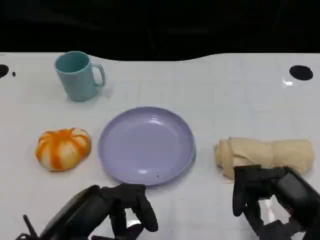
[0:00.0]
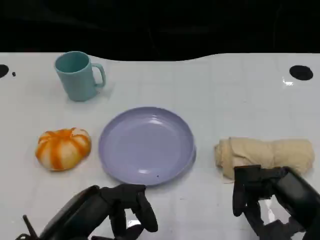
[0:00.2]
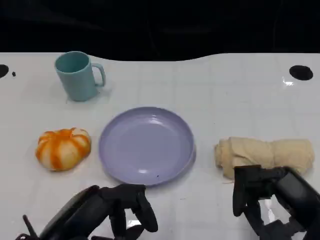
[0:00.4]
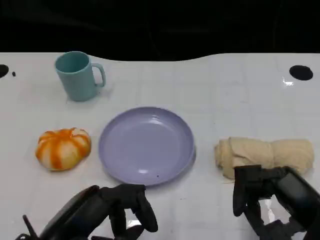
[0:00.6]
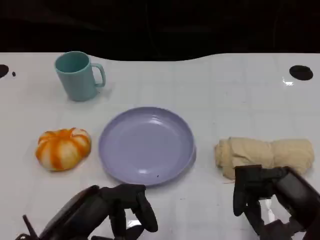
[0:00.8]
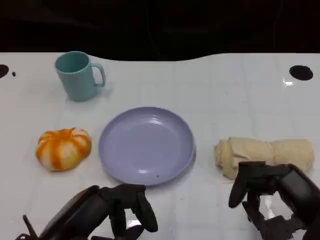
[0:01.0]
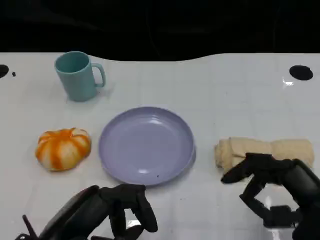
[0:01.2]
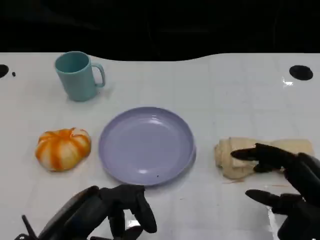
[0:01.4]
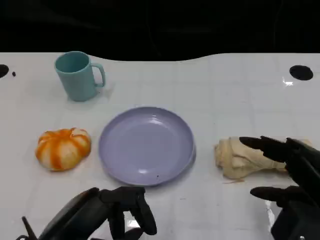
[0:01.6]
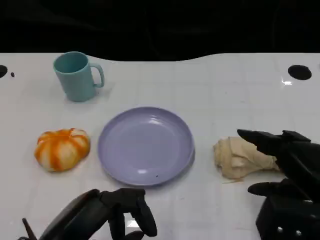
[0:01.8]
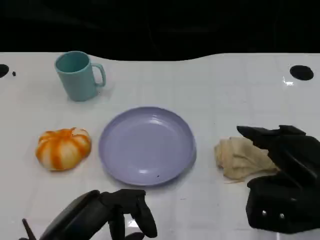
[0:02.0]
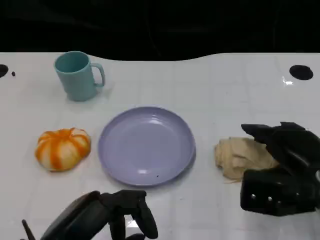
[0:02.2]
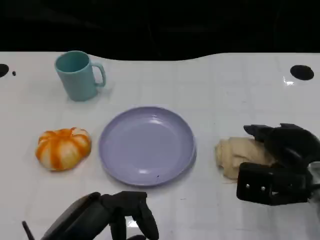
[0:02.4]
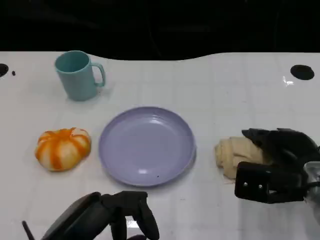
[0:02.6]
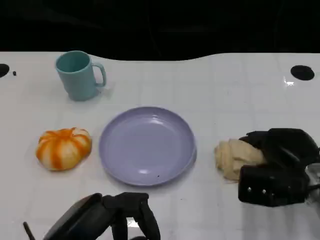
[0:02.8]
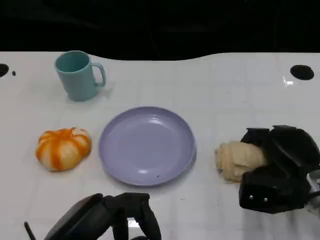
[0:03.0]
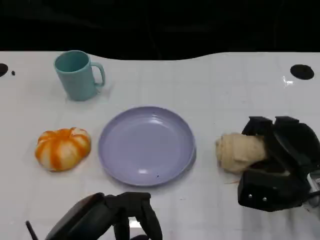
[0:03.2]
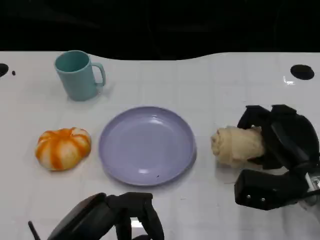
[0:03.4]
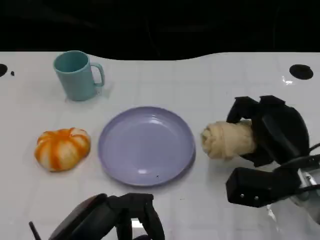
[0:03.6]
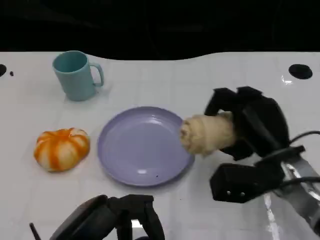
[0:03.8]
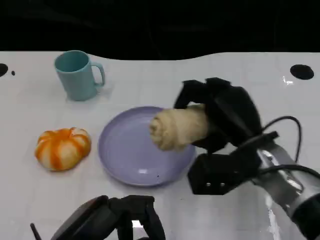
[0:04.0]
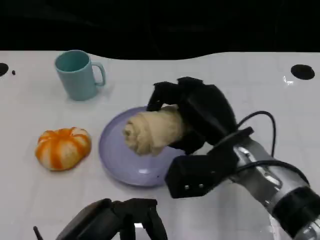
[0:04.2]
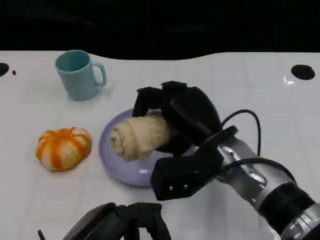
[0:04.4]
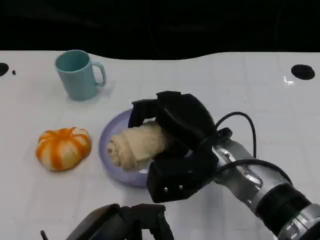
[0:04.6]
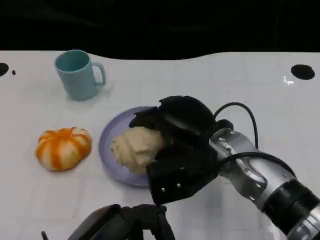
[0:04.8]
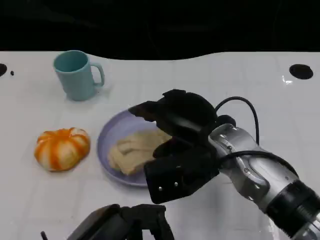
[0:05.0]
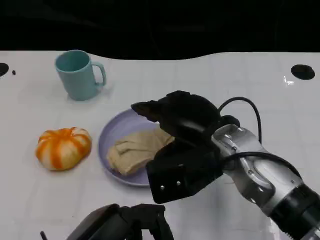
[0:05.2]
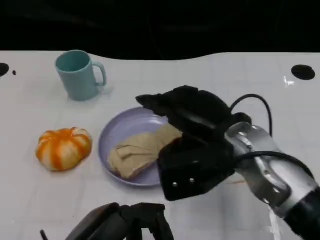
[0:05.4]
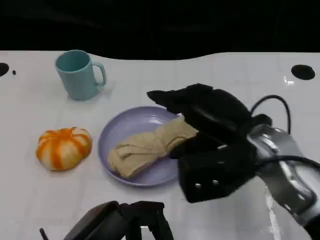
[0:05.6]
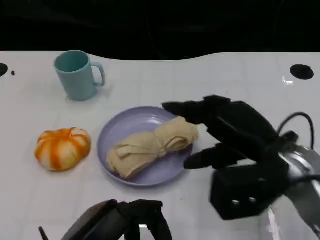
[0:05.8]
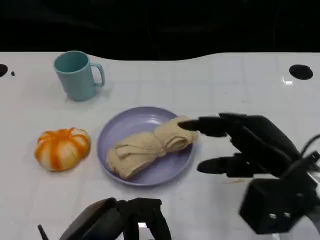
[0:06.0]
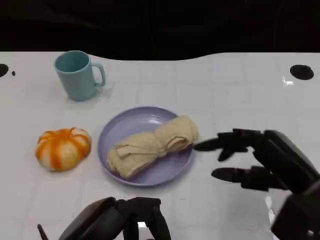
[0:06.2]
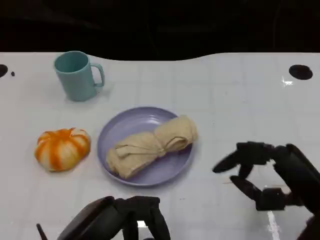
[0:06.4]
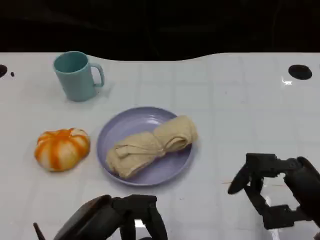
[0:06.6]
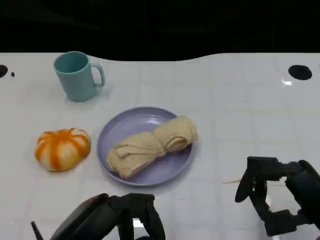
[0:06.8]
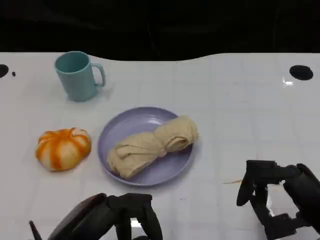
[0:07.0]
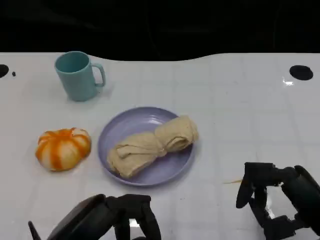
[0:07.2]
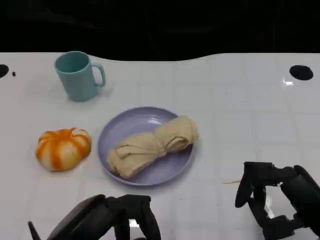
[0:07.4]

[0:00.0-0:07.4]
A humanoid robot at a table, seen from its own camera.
Task of the whole recording: Grasp the towel on the left side of the plate with the left hand and place it into the plate.
0:01.4 to 0:03.0: The right hand goes approximately 10 cm forward and downward.
0:03.0 to 0:04.4: The right hand shifts about 15 cm to the left and upward.
0:04.4 to 0:06.0: The right hand travels to the right and backward by about 15 cm.
0:06.0 to 0:07.4: The right hand heads backward, covering approximately 5 cm.

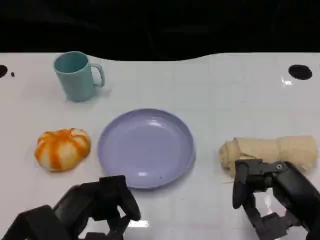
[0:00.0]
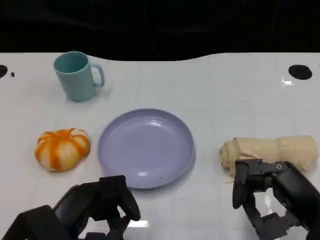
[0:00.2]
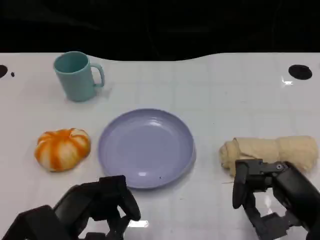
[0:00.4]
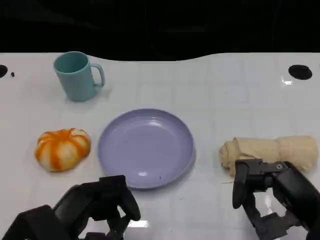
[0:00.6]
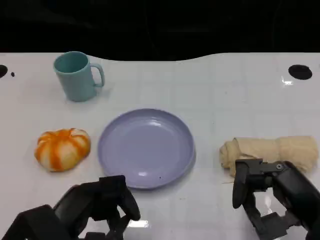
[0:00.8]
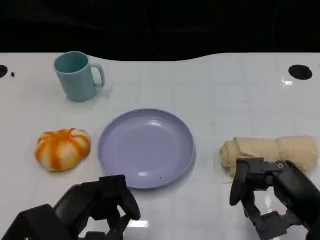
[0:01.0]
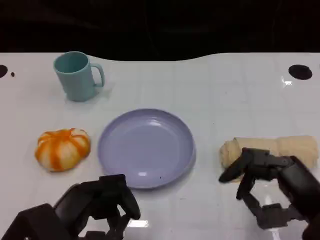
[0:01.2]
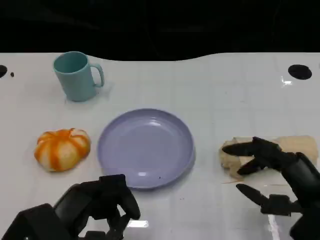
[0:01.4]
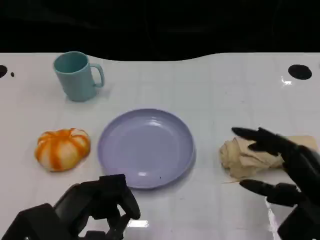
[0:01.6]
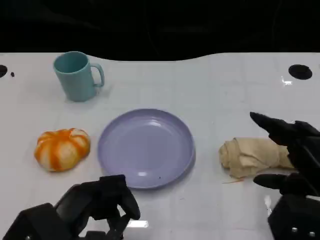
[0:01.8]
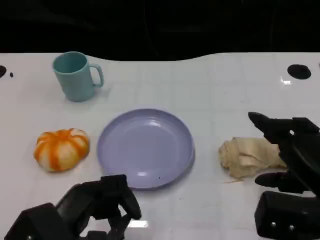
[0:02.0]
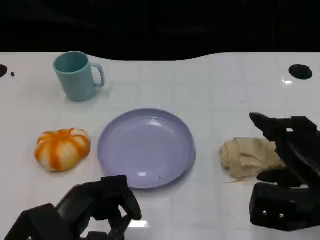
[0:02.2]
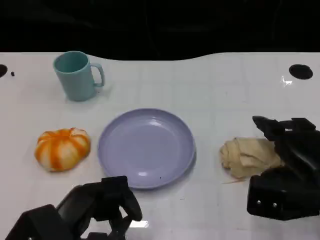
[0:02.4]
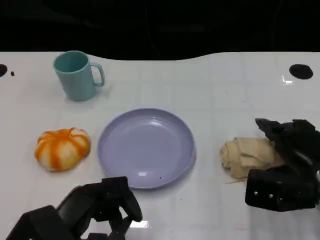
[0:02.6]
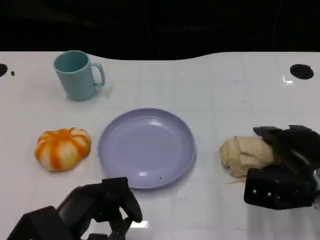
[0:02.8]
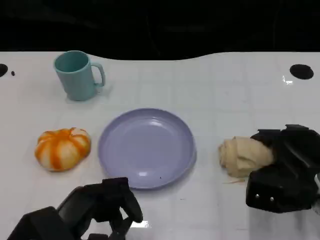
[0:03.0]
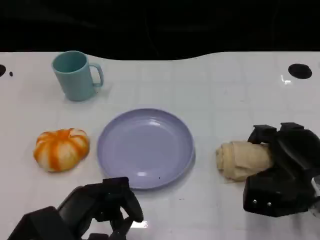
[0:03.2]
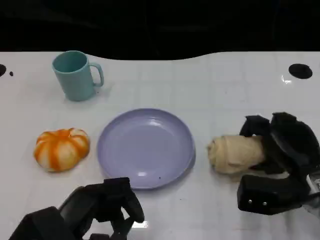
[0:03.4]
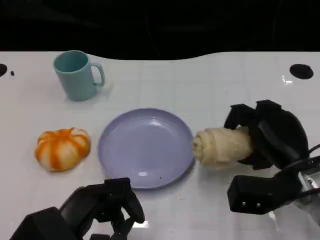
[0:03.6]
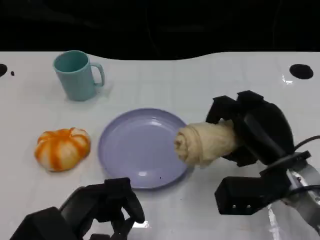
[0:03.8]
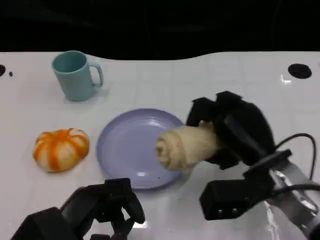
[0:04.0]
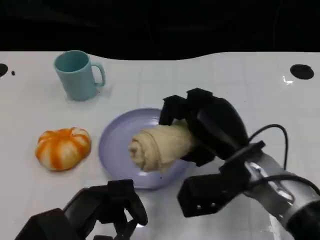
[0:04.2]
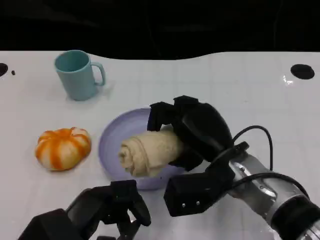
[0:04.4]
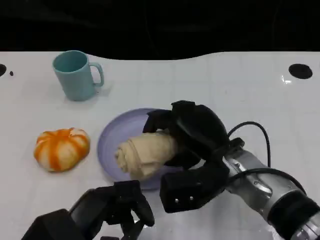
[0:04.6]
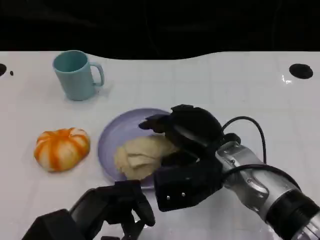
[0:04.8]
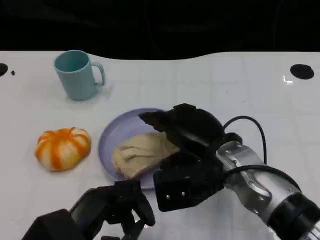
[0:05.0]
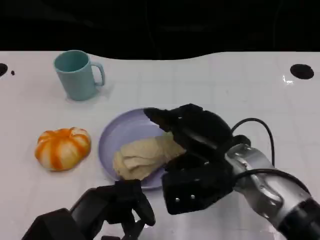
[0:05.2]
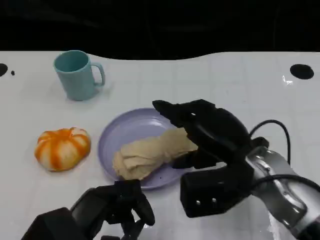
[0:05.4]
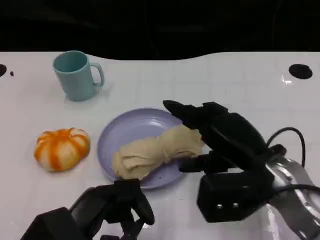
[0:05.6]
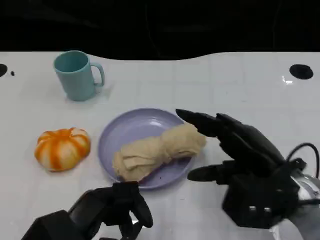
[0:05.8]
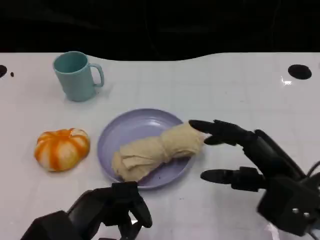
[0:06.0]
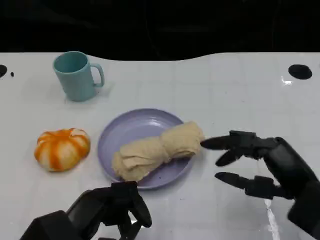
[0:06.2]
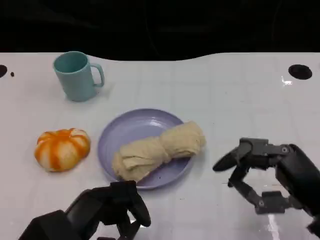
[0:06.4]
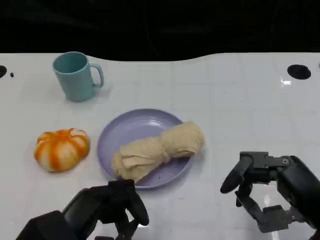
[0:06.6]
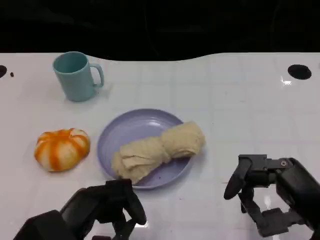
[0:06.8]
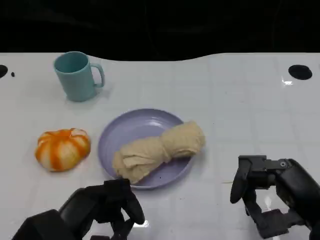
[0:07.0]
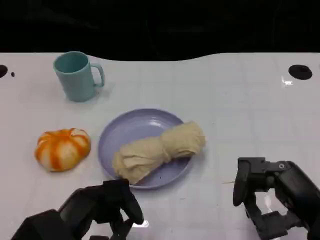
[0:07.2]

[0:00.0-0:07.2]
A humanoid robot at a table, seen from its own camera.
Task of the whole recording: Grasp the towel on the left side of the plate with the left hand and place it into the plate.
0:00.0 to 0:01.4: The hands stay close to where they were, moving slightly.
0:01.4 to 0:02.8: The right hand is displaced forward by roughly 10 cm.
0:02.8 to 0:04.4: The right hand moves to the left, approximately 15 cm.
0:04.4 to 0:05.8: The right hand is displaced to the right by approximately 10 cm.
0:05.8 to 0:07.2: The right hand moves backward, about 5 cm.

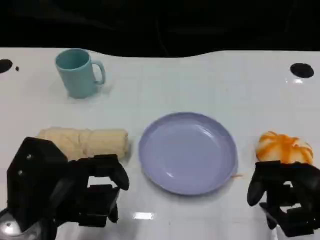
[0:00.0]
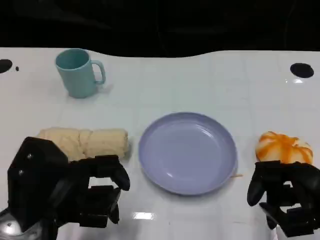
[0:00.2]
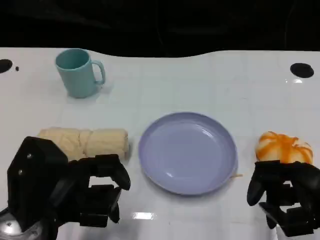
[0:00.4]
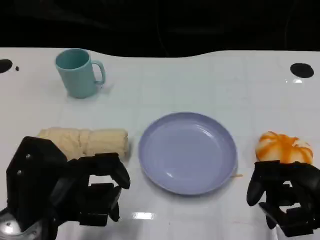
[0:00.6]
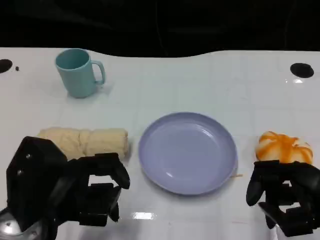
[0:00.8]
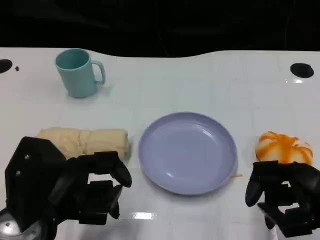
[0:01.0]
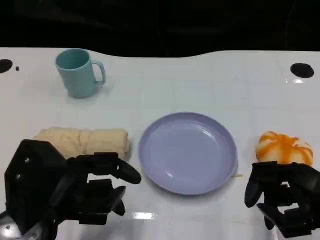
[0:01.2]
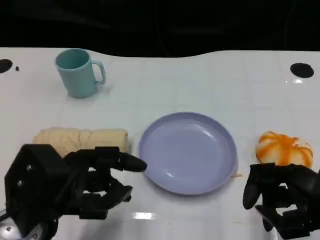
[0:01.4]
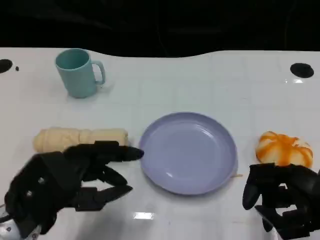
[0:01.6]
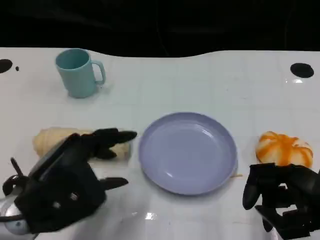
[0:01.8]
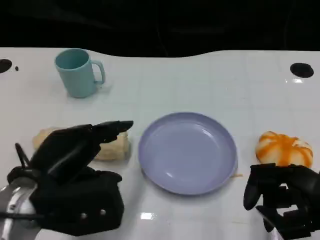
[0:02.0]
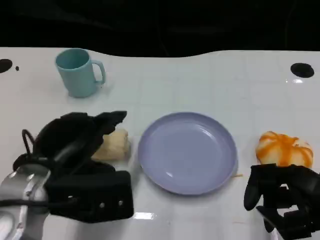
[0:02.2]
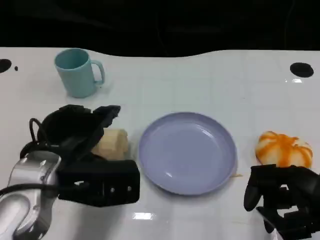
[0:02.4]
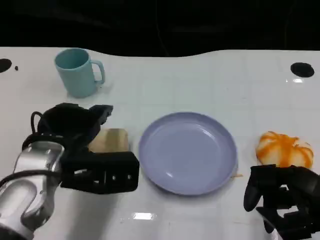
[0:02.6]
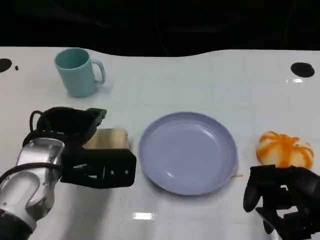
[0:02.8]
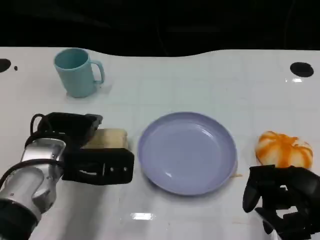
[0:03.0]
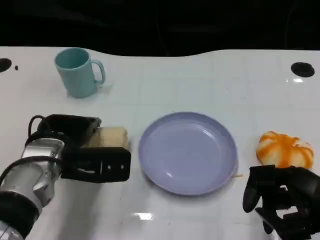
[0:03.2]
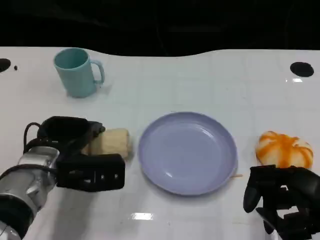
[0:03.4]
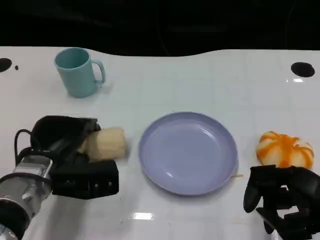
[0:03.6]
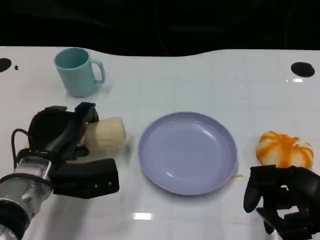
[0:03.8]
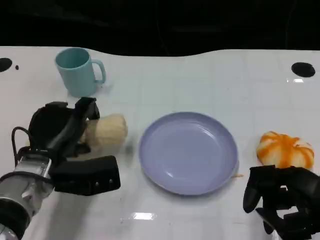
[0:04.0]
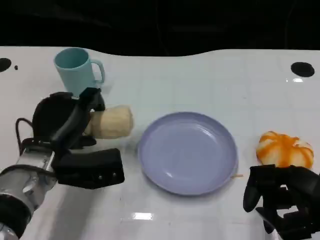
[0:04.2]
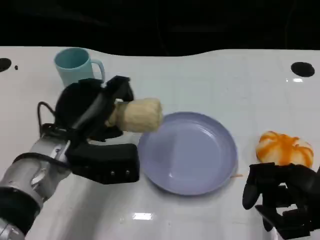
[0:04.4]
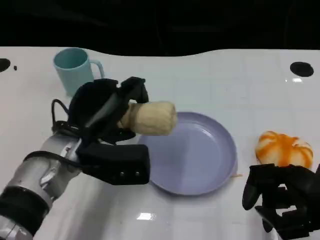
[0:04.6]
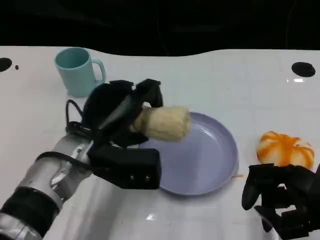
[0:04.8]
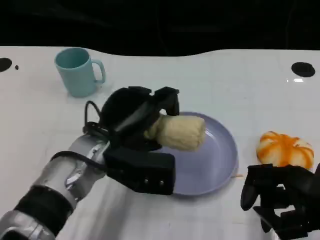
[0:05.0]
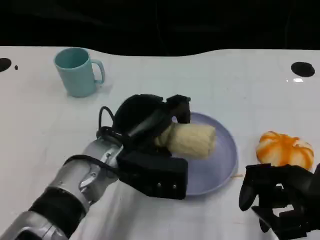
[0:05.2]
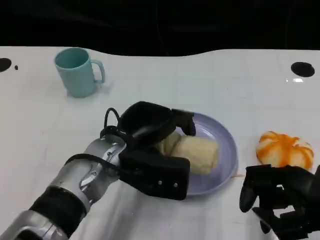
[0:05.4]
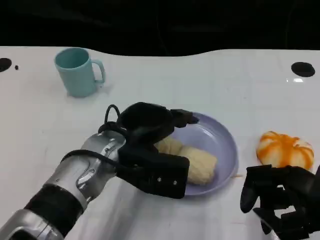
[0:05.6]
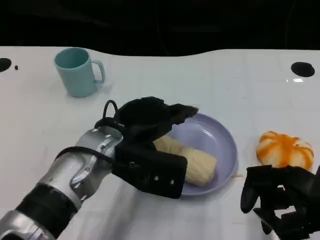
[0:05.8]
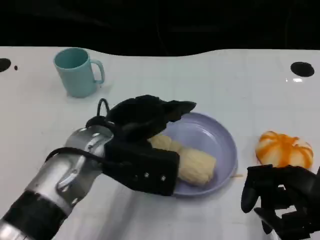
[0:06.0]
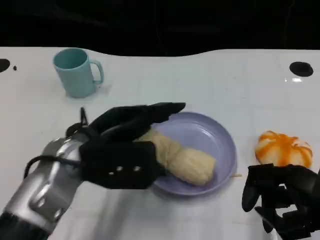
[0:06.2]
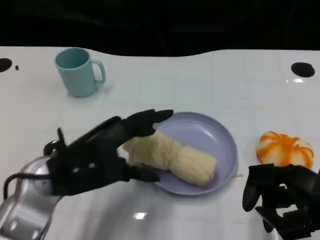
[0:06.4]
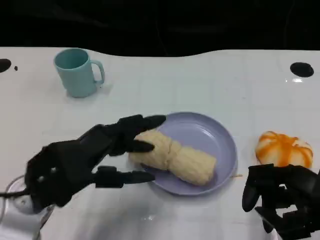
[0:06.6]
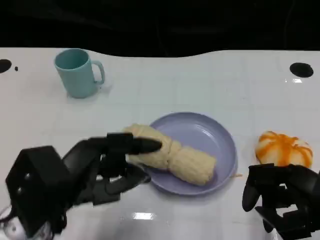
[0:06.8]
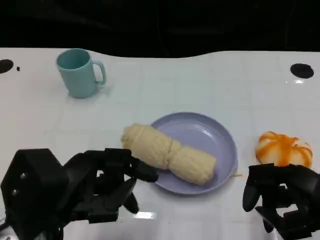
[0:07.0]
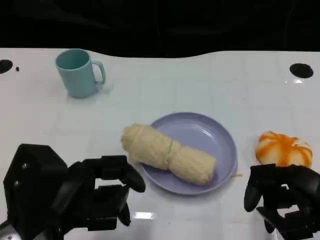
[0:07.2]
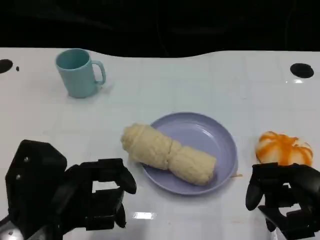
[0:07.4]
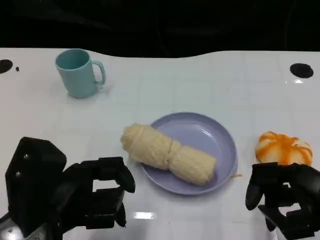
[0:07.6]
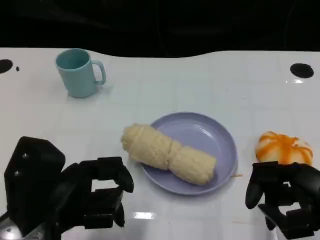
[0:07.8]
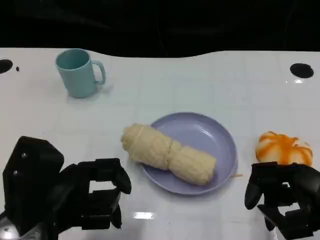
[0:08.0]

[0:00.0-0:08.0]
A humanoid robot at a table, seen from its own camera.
Task of the whole recording: Grasp the towel on the left side of the plate with the left hand and place it into the plate.
0:01.6 to 0:03.2: The left hand goes approximately 10 cm forward.
0:03.2 to 0:04.8: The left hand is displaced to the right by approximately 5 cm.
0:04.8 to 0:06.4: The left hand is displaced to the left and backward by roughly 5 cm.
0:06.4 to 0:08.0: The left hand shifts some 5 cm backward.
